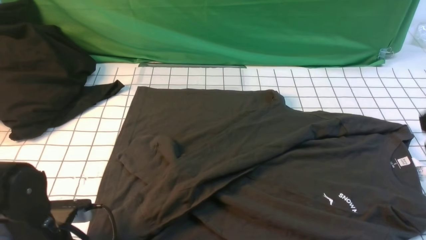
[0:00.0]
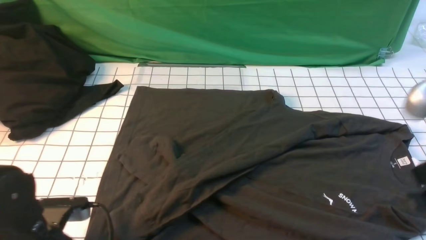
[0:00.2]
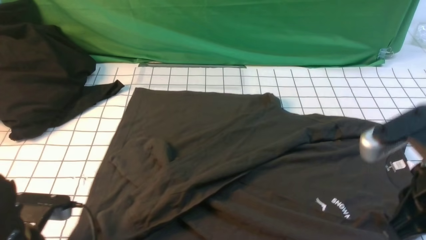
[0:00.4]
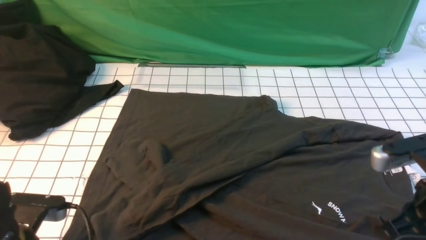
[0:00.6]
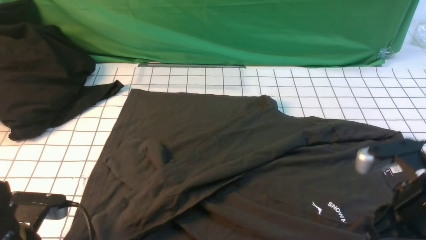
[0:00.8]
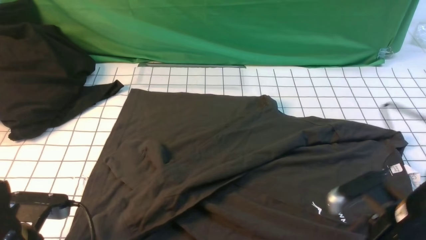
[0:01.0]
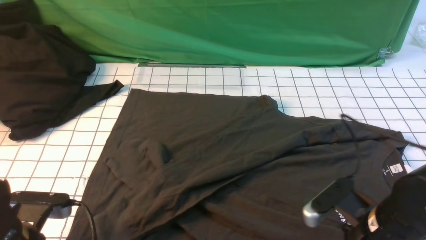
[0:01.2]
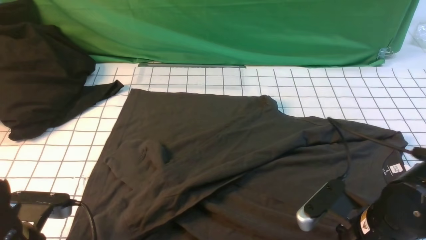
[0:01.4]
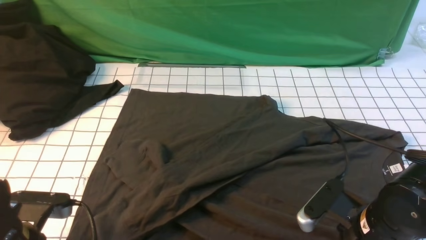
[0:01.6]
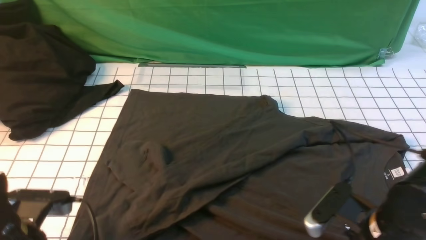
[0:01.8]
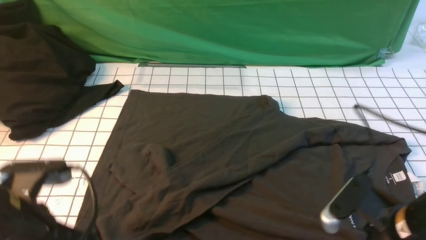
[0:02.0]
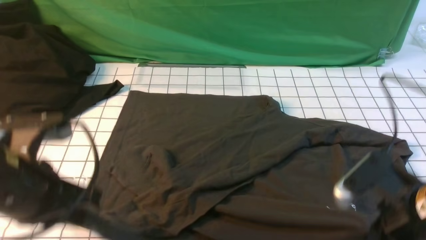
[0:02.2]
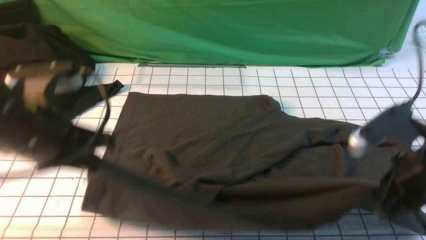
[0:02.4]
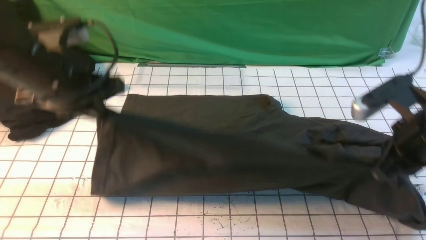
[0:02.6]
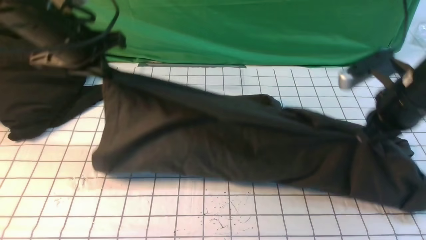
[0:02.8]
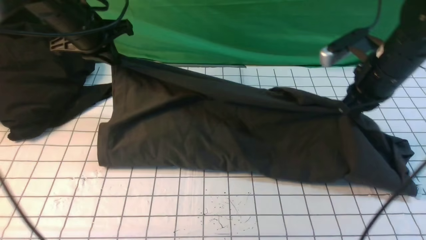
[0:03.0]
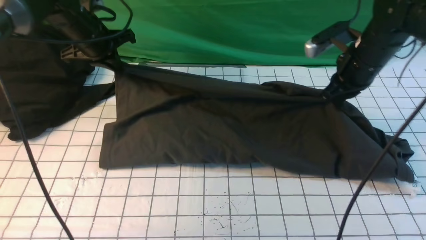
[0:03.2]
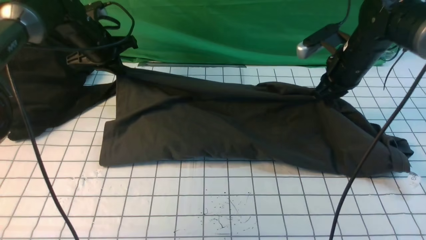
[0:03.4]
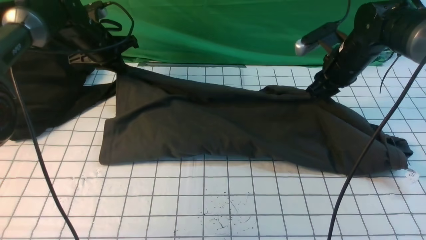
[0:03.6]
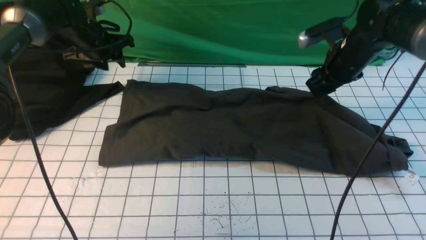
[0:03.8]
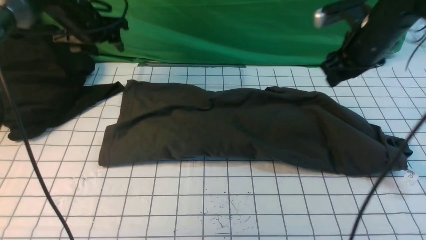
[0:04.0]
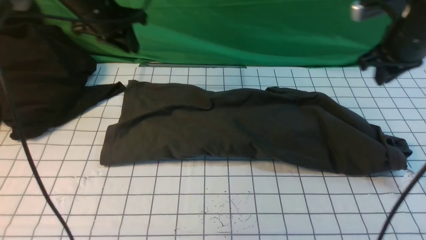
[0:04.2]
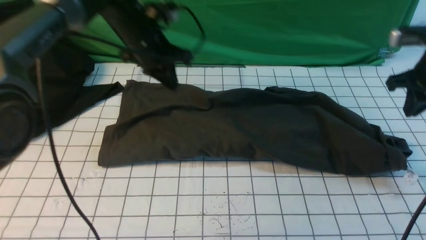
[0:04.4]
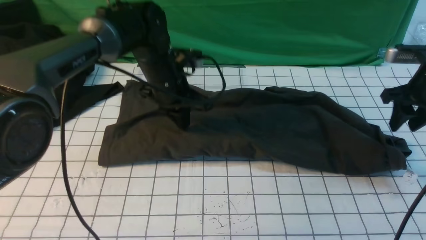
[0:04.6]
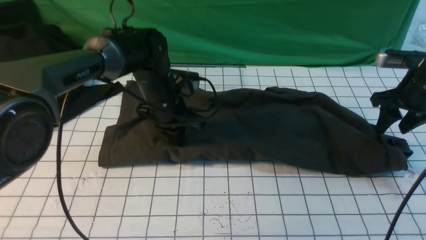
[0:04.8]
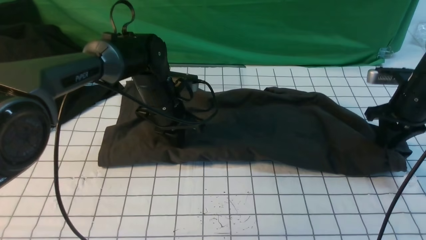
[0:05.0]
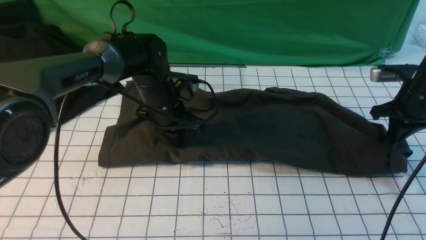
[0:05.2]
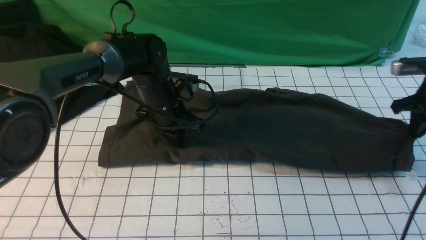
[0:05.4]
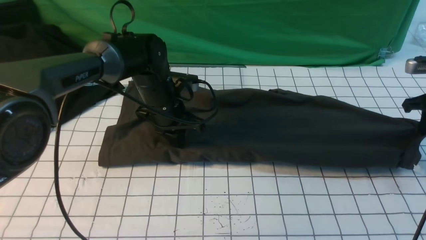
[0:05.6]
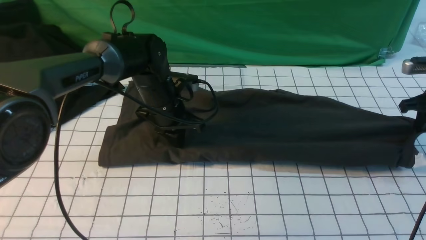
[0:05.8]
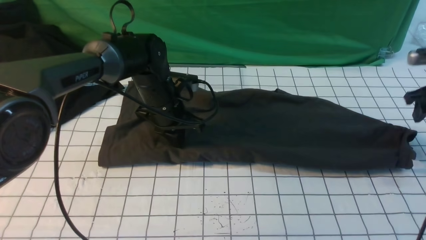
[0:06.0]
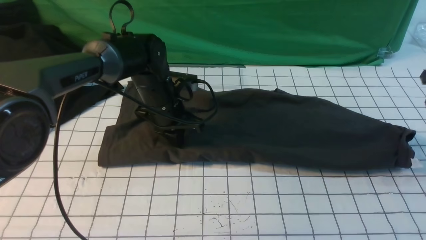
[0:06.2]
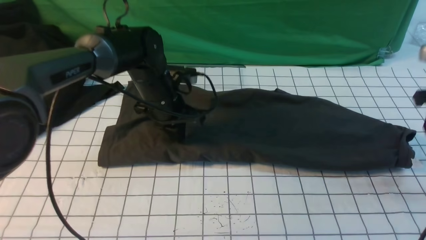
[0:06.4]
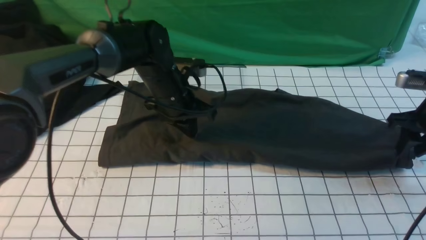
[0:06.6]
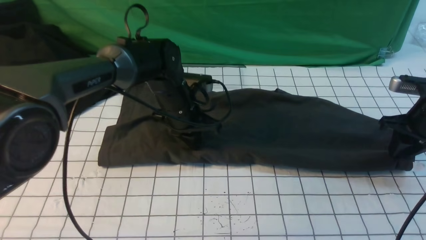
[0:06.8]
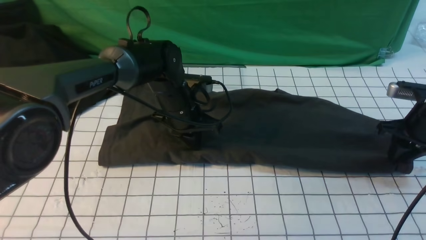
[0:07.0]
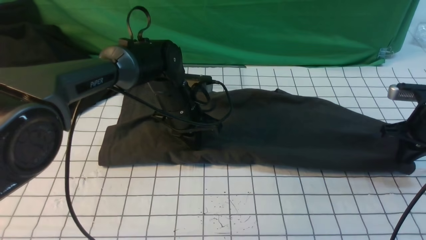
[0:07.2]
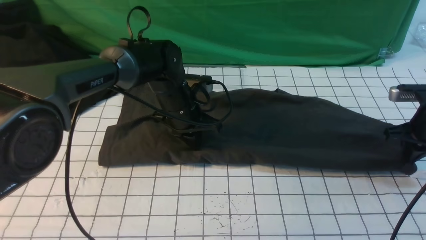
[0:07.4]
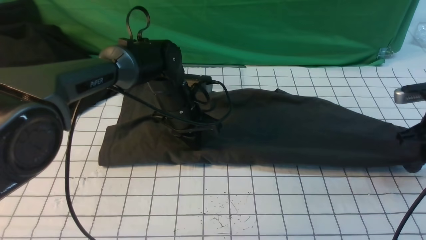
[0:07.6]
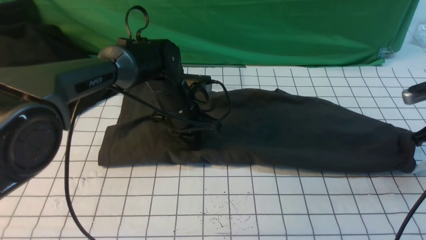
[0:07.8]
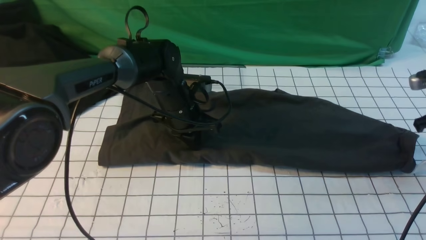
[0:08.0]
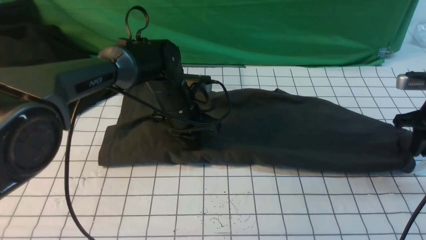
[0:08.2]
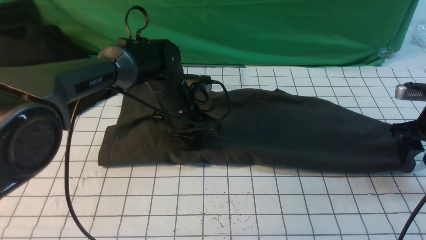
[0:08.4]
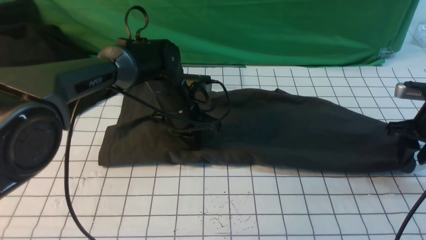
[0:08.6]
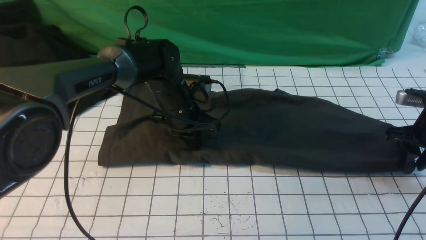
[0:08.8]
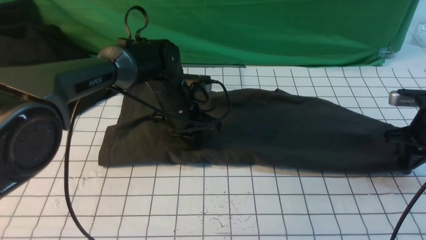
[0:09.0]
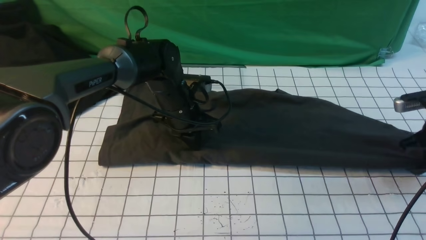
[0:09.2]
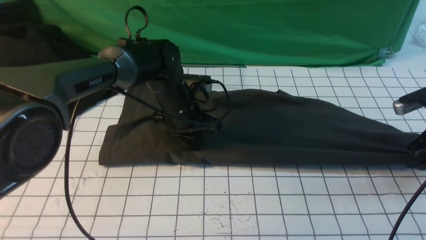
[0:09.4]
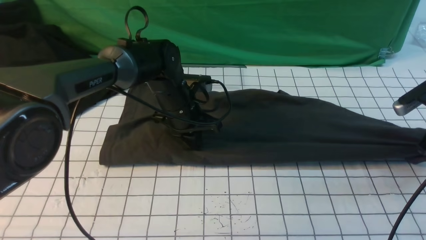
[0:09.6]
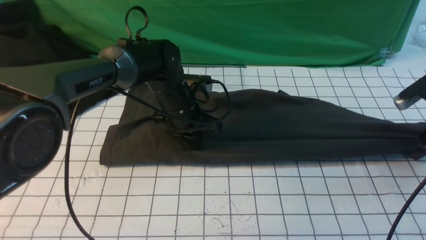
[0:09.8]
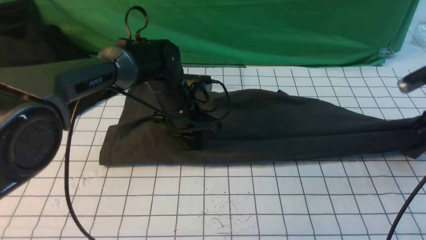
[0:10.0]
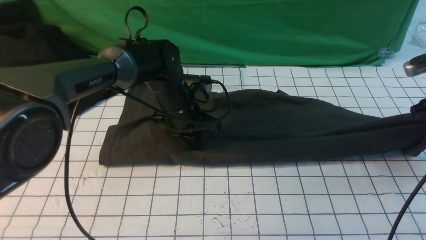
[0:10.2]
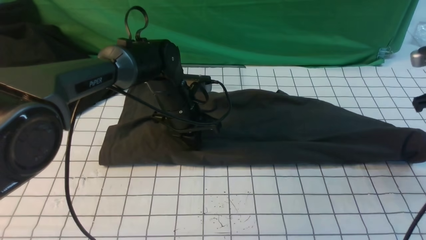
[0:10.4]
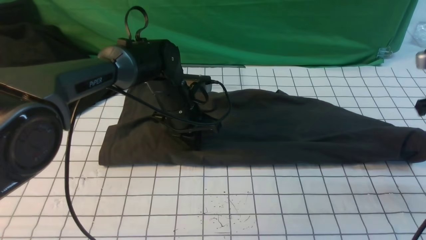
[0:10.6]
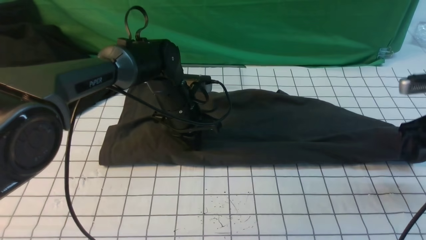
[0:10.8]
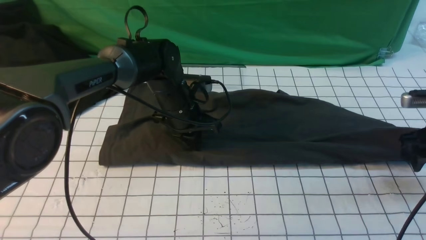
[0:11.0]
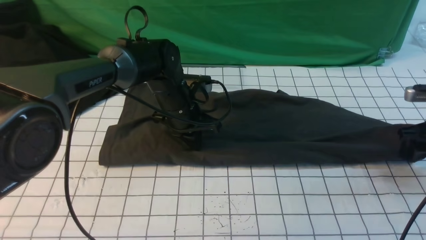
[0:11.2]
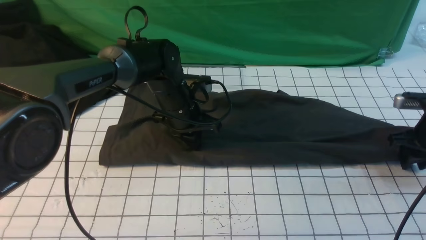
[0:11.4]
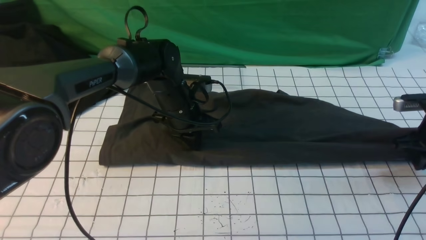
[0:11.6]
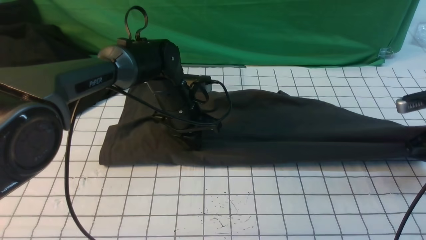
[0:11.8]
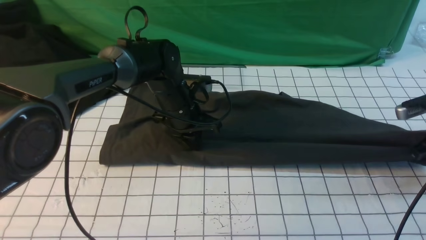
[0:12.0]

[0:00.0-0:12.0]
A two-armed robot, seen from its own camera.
Step, 0:00.0 to 0:01.4: use both arms simultaneously to clamp the lower edge of the clothing fabric.
Step, 0:01.8 to 0:03.6: use both arms to drag the lower edge of the fabric forward and fold it over the upper edge.
0:00.0 to 0:01.6: The right gripper heads downward, covering approximately 20 cm, and opens its fingers.
0:01.6 to 0:03.0: The right gripper shifts some 25 cm forward and upward, and closes. The left gripper moves forward, some 30 cm.
0:03.0 to 0:04.4: Both grippers travel together to the right, approximately 10 cm. The left gripper opens and closes again. The right gripper opens, then closes once more.
0:04.4 to 0:06.0: The right gripper is displaced to the right by about 10 cm, and opens. The left gripper heads downward, covering approximately 10 cm.
0:06.0 to 0:07.6: The right gripper changes place by about 5 cm, and closes up.
0:07.6 to 0:09.0: The right gripper opens and closes again.
0:09.0 to 0:10.4: The right gripper is displaced upward by roughly 10 cm, and opens up.
0:10.4 to 0:12.0: The right gripper is displaced downward by approximately 10 cm, and closes up.

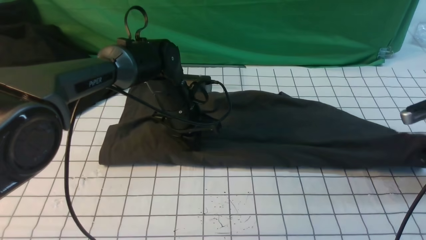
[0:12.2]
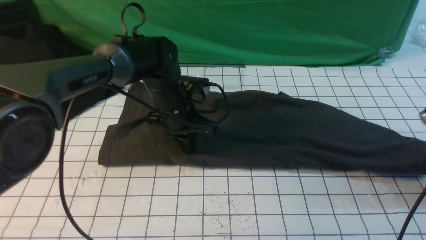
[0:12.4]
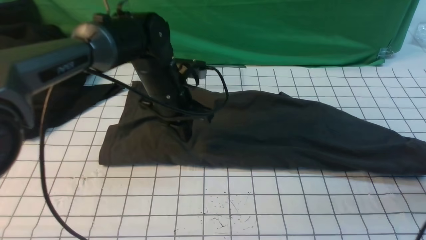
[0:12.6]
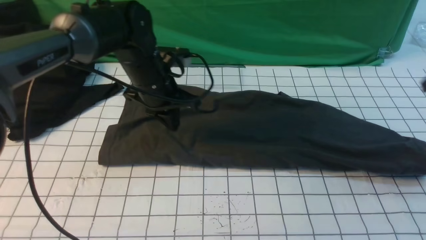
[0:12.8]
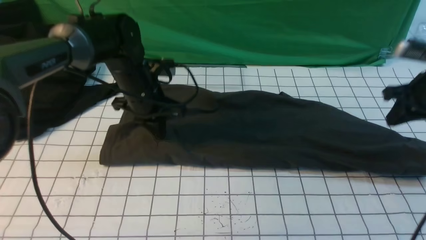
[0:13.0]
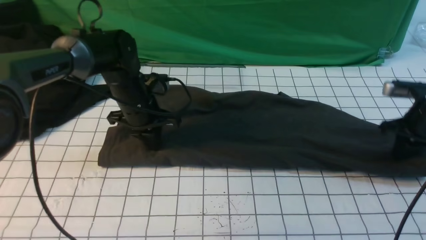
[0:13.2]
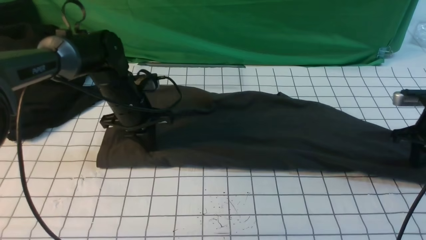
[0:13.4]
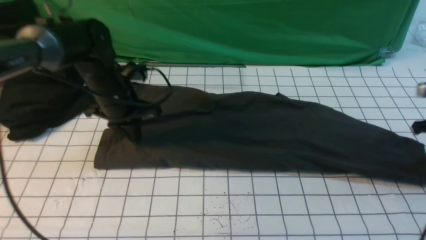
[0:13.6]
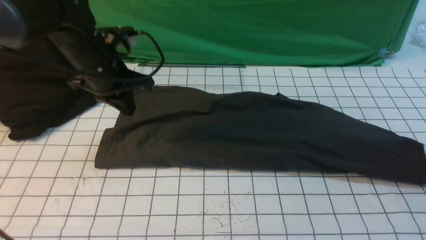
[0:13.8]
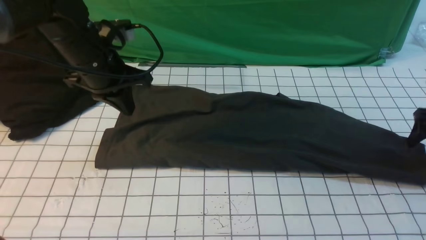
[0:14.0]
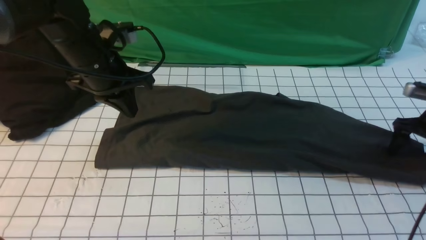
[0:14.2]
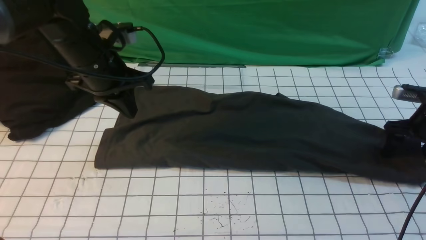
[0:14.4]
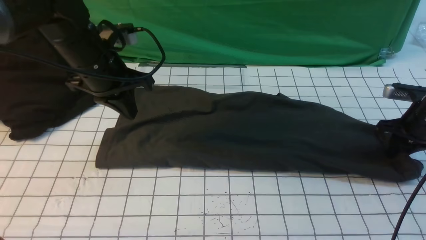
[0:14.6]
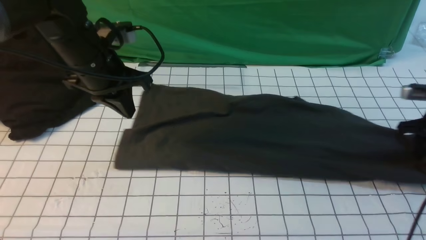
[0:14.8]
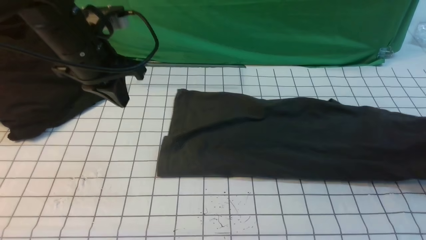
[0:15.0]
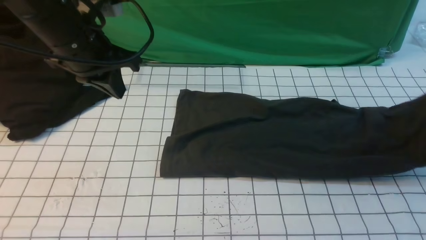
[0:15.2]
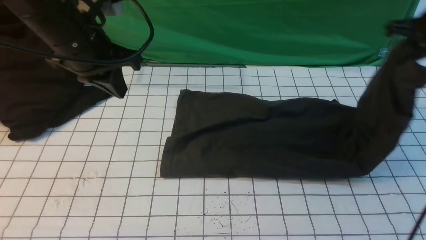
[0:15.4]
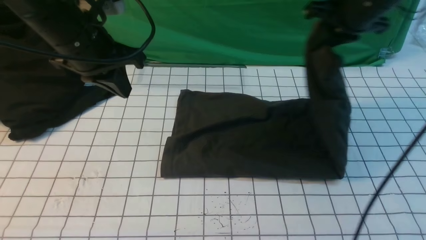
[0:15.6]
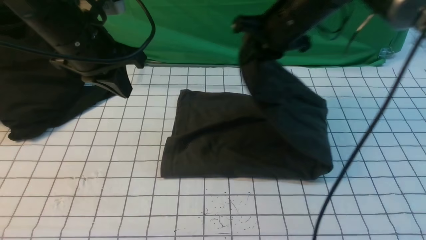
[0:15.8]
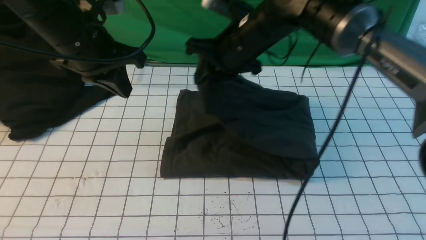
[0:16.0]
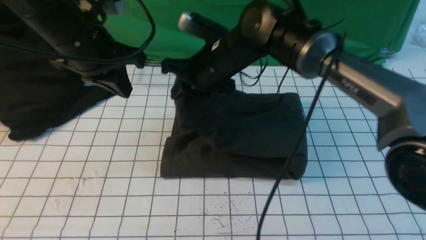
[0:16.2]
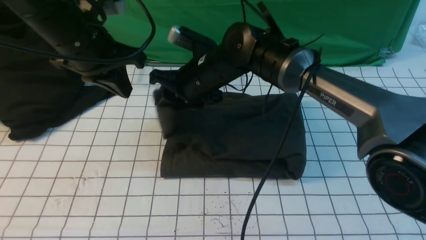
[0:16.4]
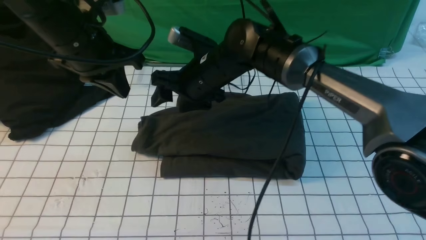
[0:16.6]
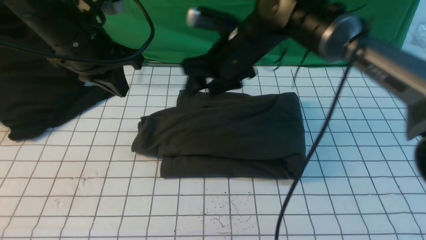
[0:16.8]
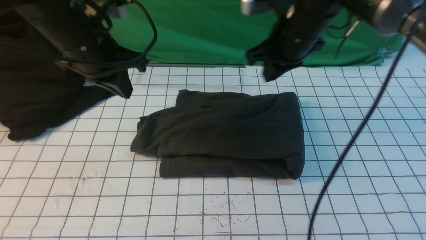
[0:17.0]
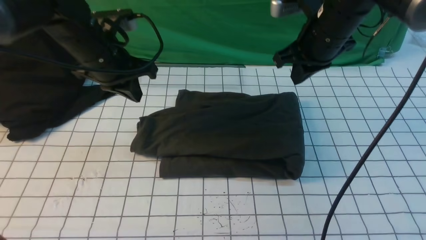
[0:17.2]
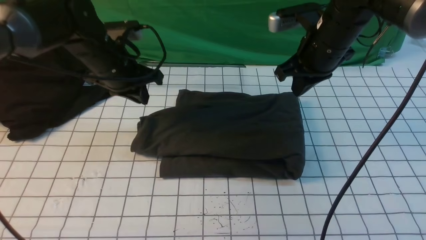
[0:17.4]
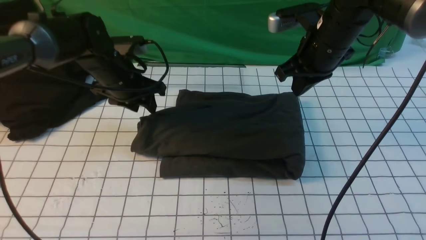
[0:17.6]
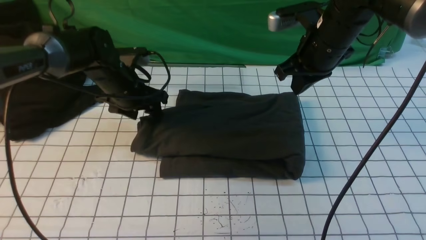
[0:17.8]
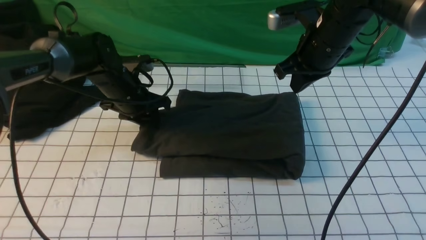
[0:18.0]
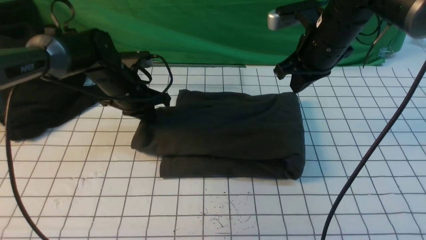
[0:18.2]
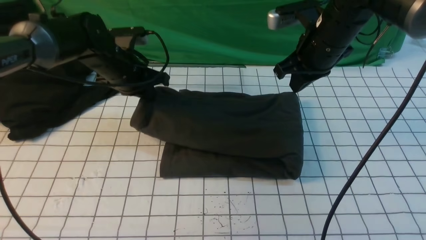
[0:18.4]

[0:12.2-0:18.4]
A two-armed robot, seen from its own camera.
Step, 0:12.2 to 0:14.6: use the right arm to clamp the right edge of the fabric.
Step, 0:14.8 to 0:16.4: use the right arm to drag the right edge of the fabric to the left and folds it over the left edge.
0:12.2 to 0:13.8: The right gripper closes, then opens again, while the left gripper heads to the left and upward, covering about 15 cm.
0:13.8 to 0:15.4: The right gripper travels to the left and upward by about 20 cm, and closes up; the left gripper travels upward by approximately 5 cm.
0:15.4 to 0:16.8: The right gripper moves to the left, some 25 cm, and opens.
0:16.8 to 0:18.4: The left gripper moves downward and forward, roughly 15 cm, and opens, then closes once more, while the right gripper shifts some 10 cm to the right, and closes its fingers.
